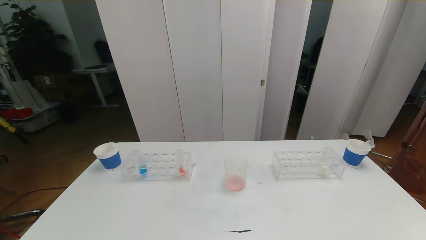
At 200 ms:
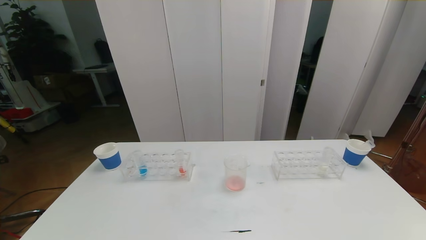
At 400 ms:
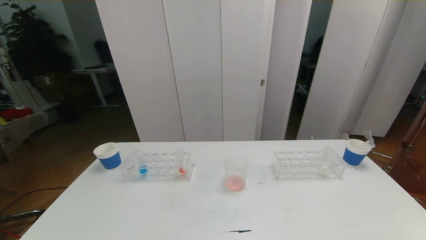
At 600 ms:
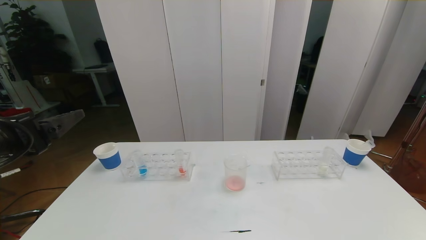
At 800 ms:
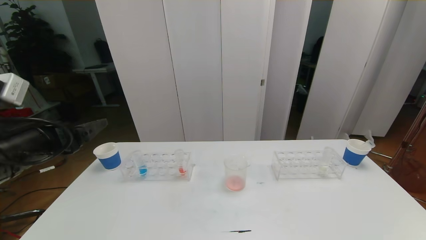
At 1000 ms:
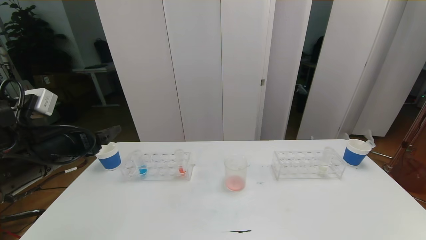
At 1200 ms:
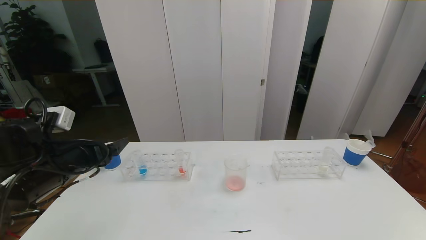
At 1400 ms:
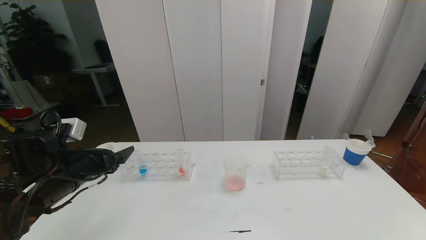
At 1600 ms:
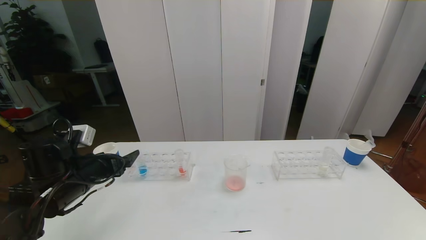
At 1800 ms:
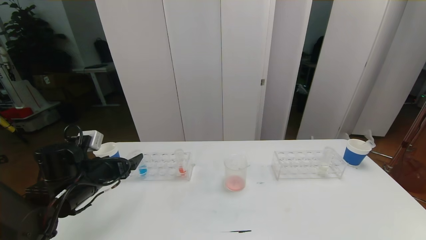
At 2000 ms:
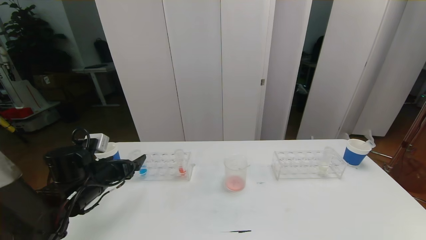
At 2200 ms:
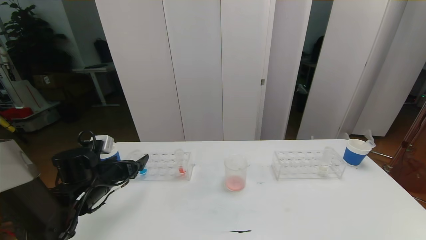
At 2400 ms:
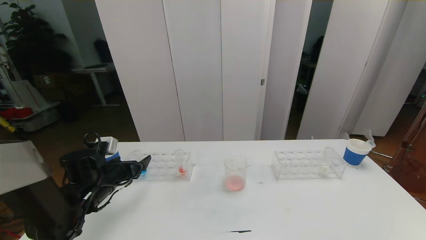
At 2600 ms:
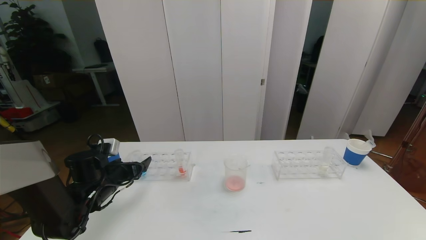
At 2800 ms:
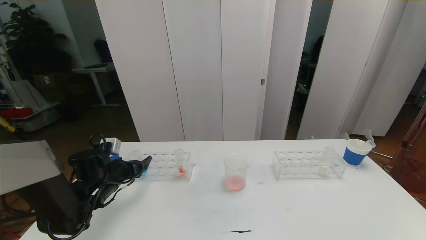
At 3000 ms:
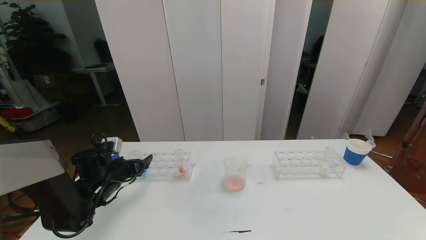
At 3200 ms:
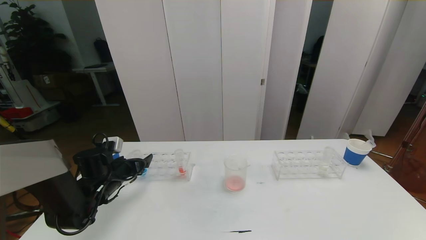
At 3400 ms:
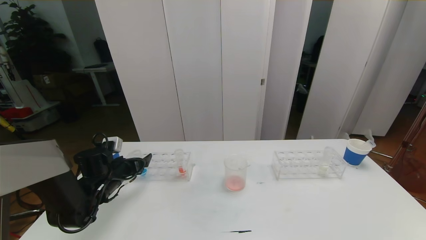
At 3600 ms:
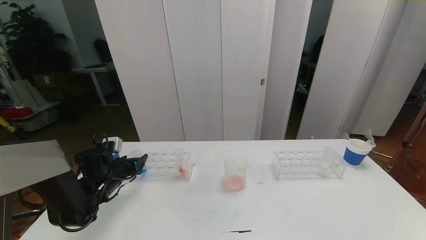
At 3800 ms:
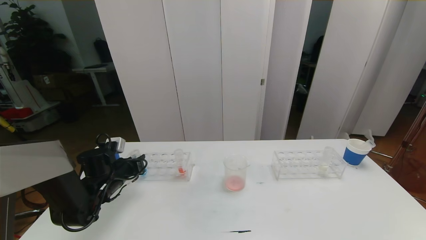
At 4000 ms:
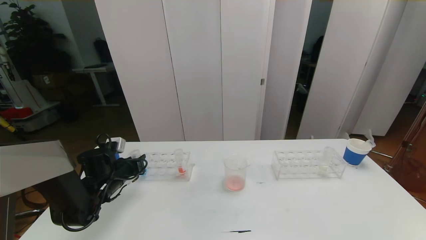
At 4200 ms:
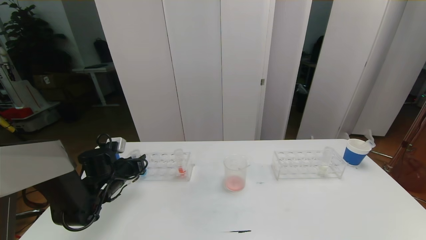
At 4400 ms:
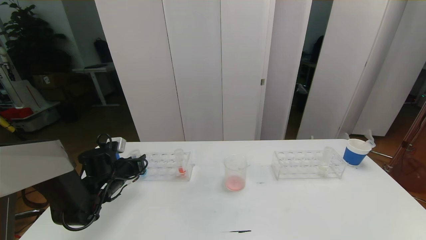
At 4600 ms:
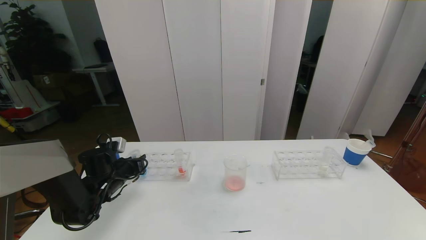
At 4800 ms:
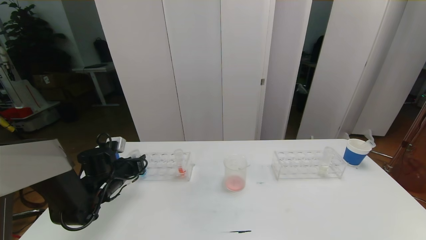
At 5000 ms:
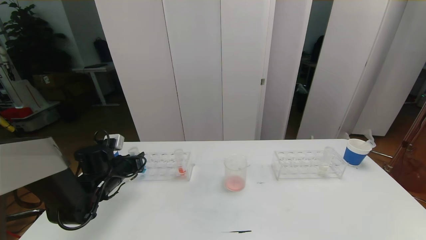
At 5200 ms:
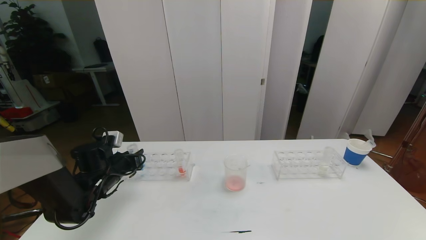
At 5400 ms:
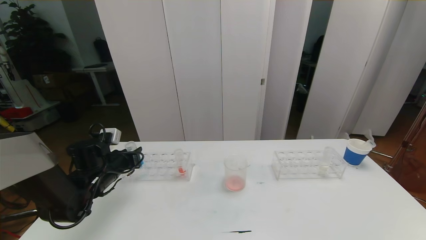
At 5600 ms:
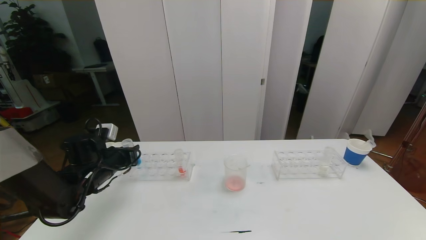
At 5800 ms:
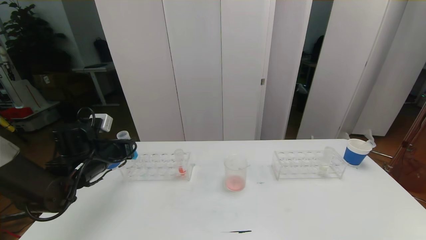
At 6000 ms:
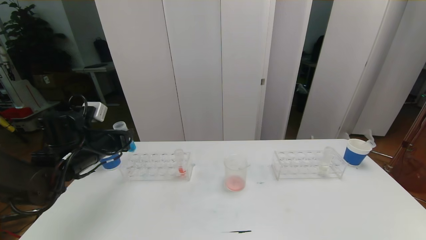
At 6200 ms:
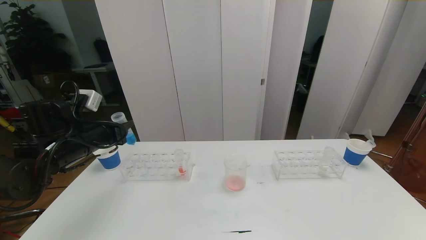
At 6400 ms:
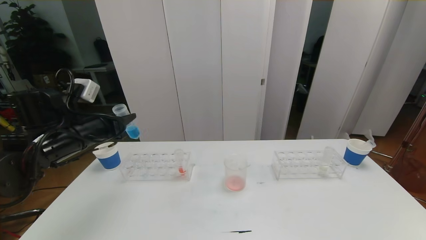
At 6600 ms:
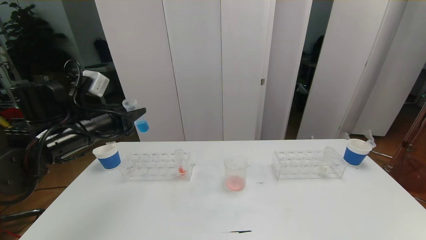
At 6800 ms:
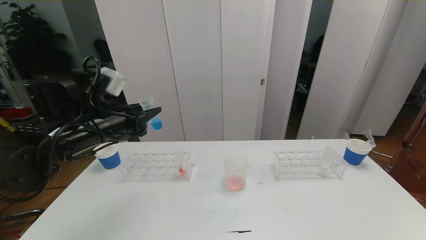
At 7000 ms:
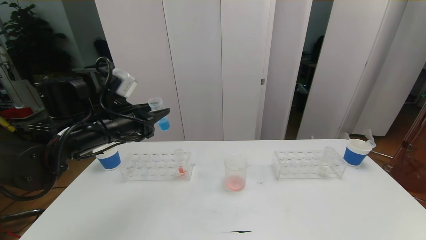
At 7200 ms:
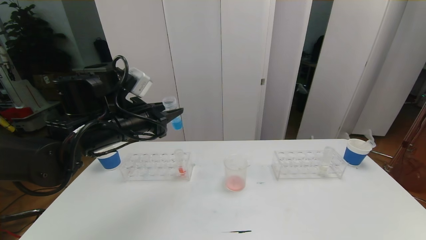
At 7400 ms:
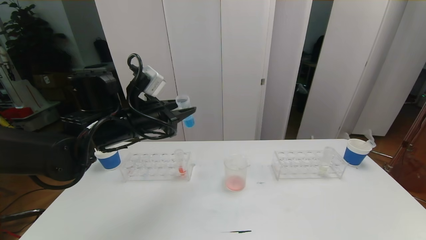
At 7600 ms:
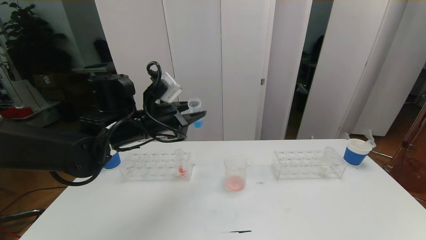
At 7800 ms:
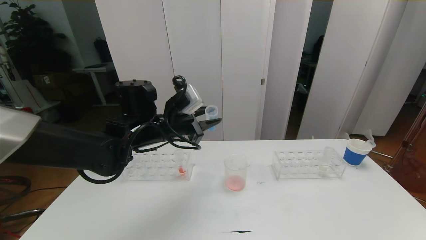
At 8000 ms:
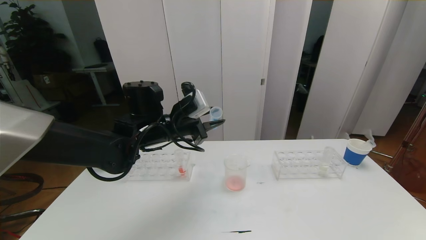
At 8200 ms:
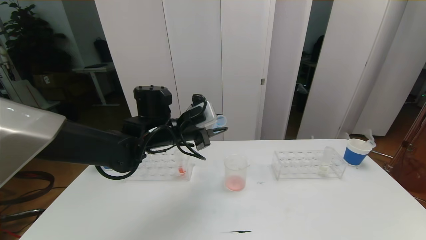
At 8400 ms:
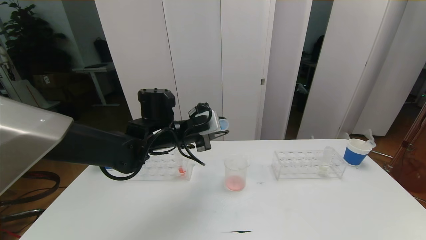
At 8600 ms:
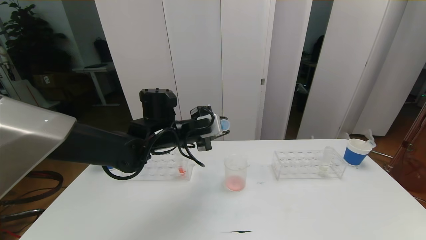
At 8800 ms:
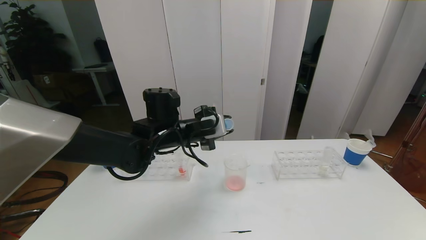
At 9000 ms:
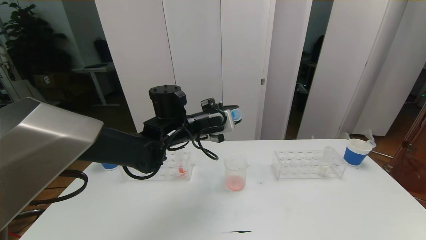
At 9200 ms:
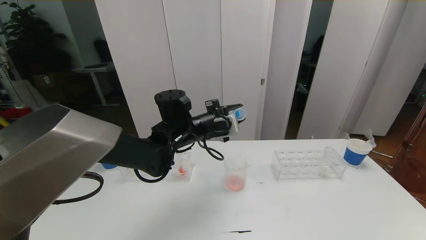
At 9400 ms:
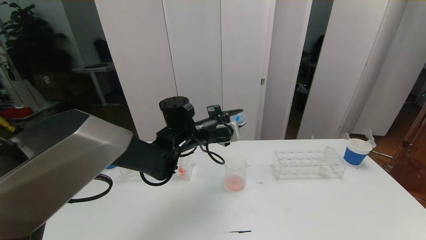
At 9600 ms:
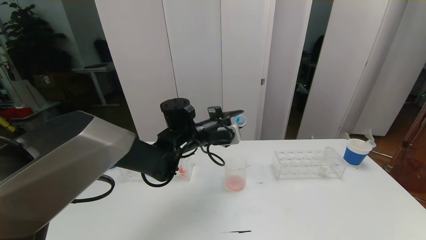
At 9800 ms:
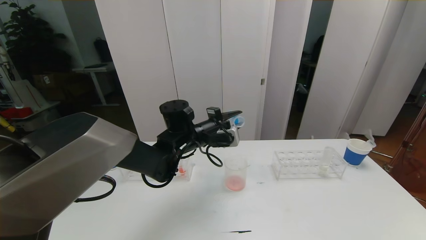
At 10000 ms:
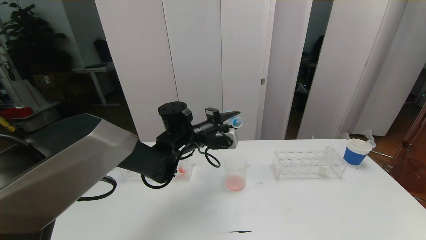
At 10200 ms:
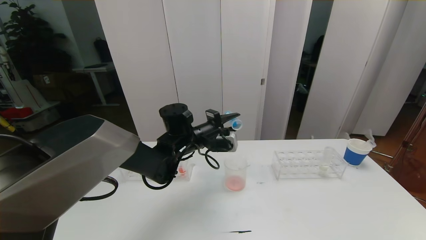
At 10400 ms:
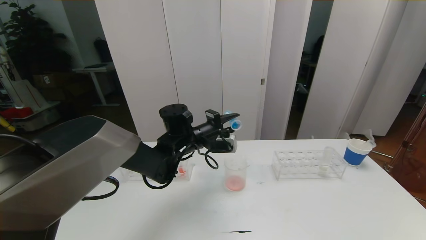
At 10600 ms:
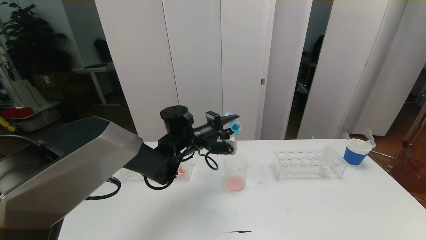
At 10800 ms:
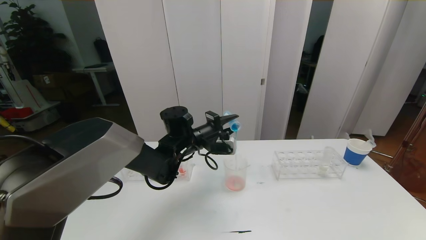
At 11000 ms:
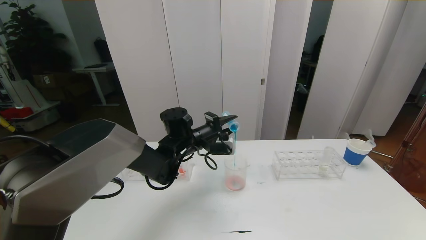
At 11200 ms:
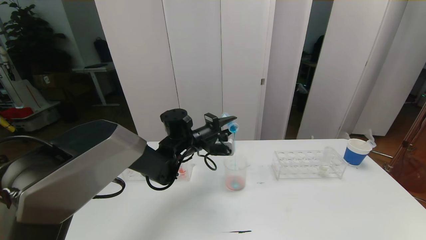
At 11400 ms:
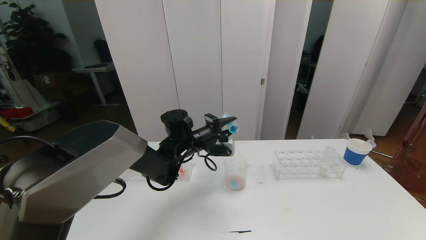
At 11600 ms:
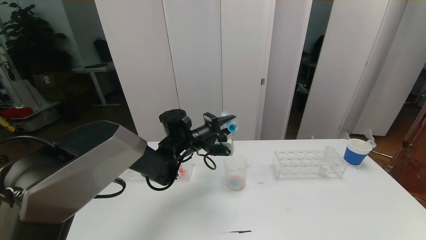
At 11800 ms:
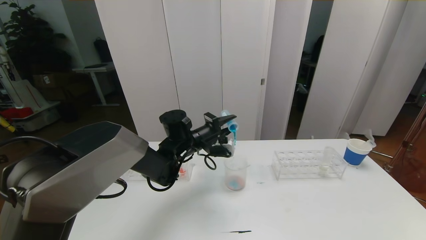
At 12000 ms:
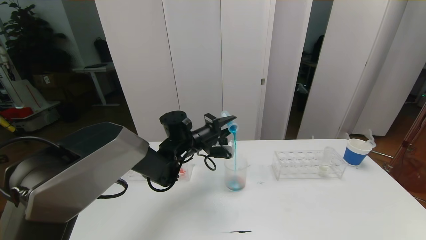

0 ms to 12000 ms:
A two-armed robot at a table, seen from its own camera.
Task of the whole recording: pick up the test tube with red pigment the test tube with blue pigment and the test tube with white pigment by grippers and pour them into the beaker.
0 ms to 1600 ms: The left gripper shifts some 25 cm forward.
1600 ms to 3000 ms: The left gripper goes about 10 cm downward and forward.
3000 ms to 4400 ms: The left gripper closes up.
4400 ms to 6000 ms: The left gripper goes approximately 10 cm upward.
6000 ms to 7600 ms: The left gripper shifts about 15 cm to the right and upward.
7600 ms to 9000 ms: The left gripper travels to the right by about 5 cm.
9000 ms to 10400 ms: The left gripper ends up approximately 5 cm from where it was.
10400 ms to 12000 ms: The grippers move only a little.

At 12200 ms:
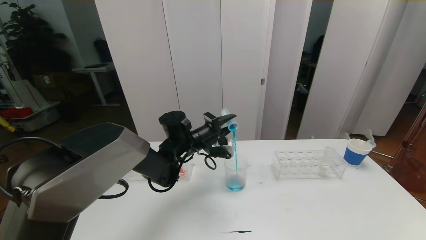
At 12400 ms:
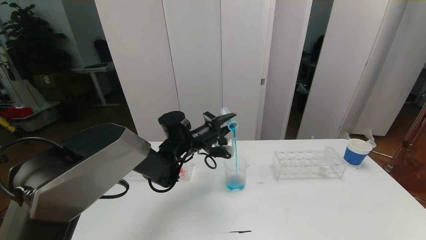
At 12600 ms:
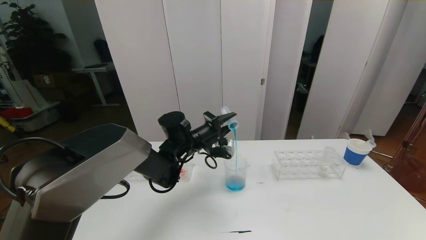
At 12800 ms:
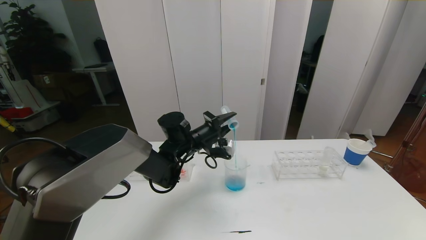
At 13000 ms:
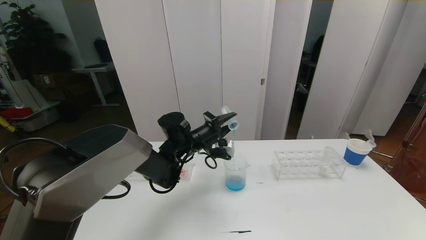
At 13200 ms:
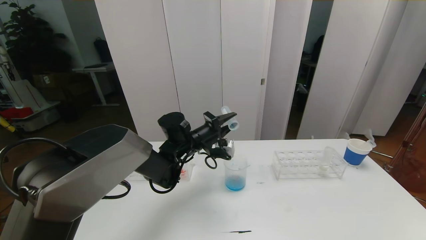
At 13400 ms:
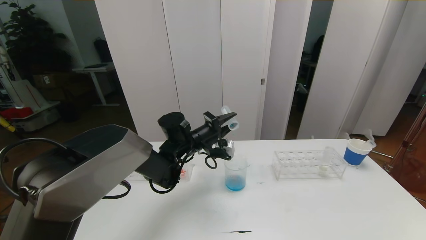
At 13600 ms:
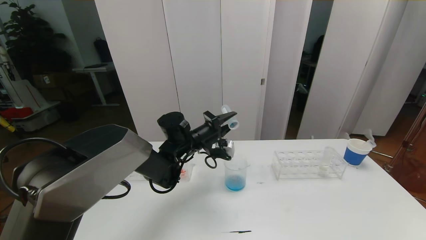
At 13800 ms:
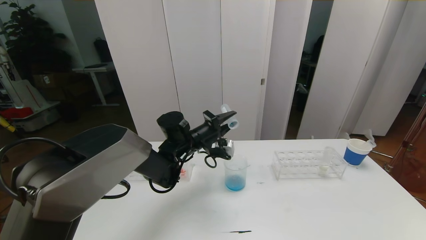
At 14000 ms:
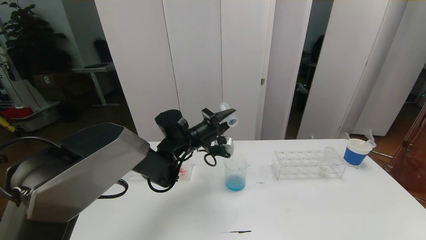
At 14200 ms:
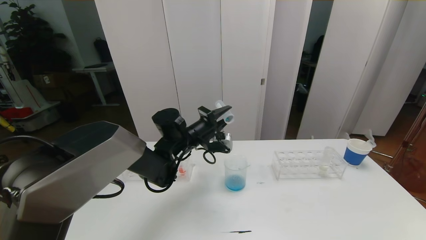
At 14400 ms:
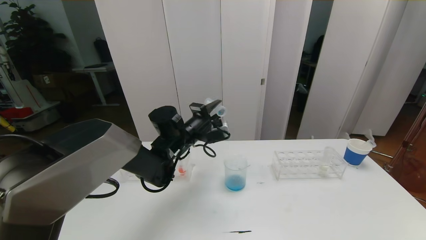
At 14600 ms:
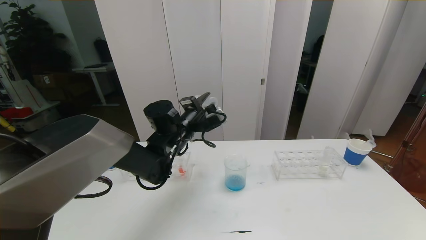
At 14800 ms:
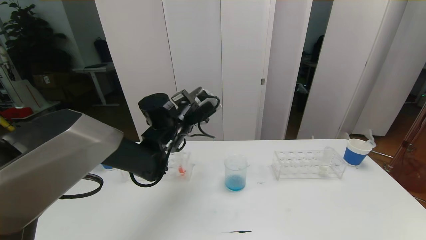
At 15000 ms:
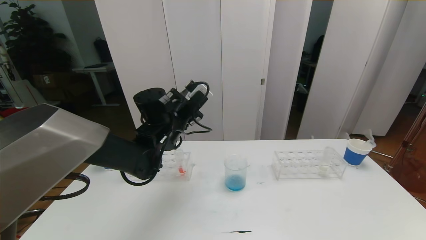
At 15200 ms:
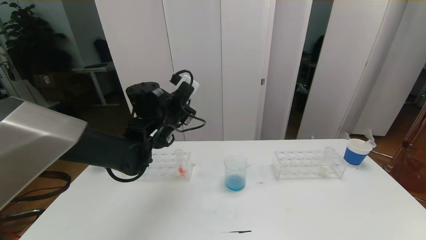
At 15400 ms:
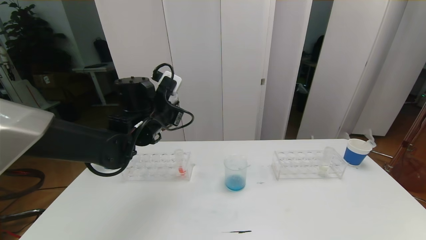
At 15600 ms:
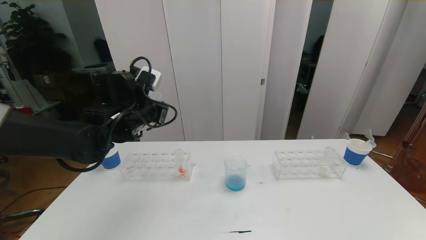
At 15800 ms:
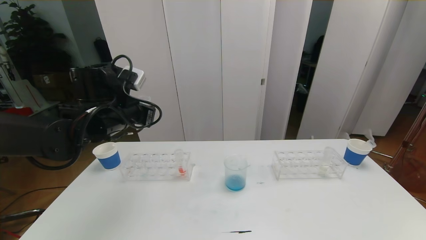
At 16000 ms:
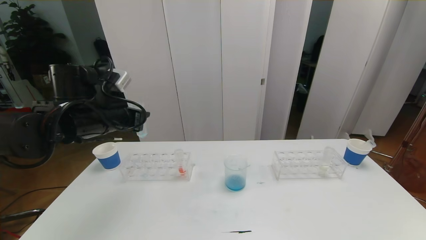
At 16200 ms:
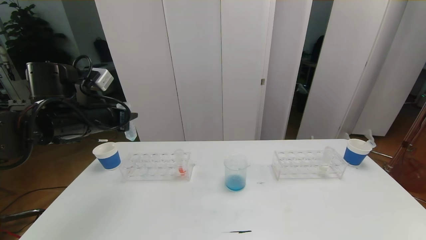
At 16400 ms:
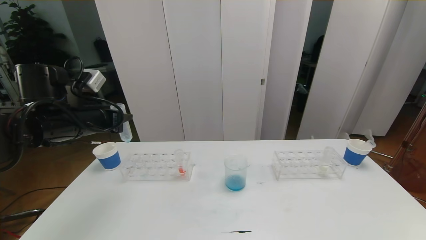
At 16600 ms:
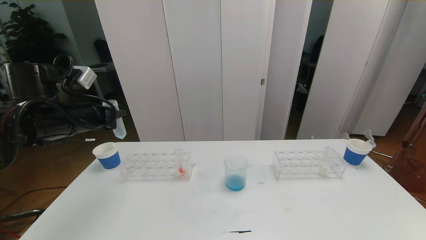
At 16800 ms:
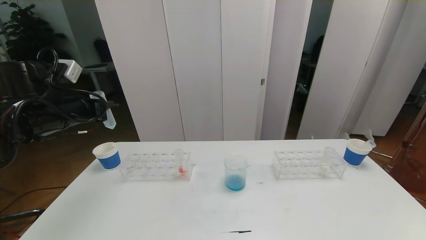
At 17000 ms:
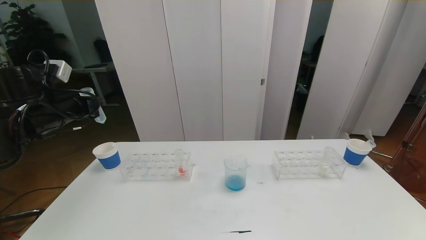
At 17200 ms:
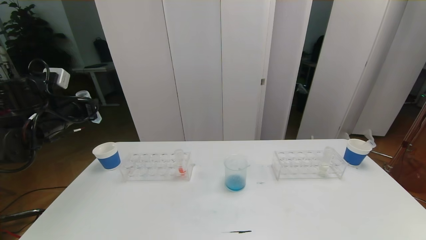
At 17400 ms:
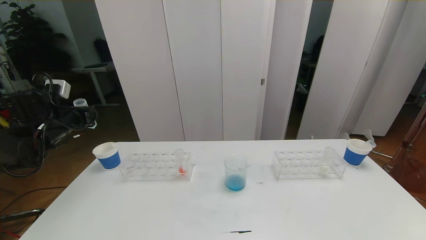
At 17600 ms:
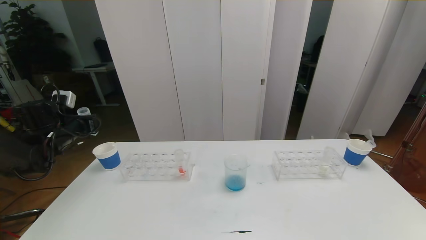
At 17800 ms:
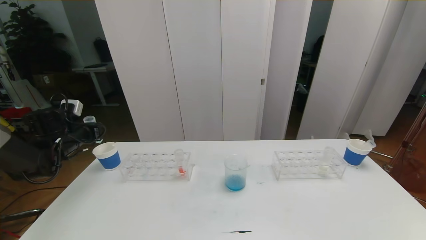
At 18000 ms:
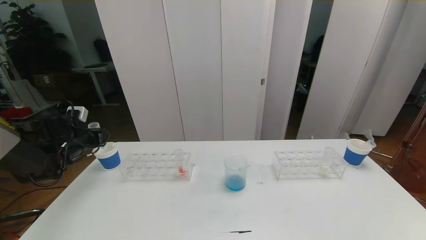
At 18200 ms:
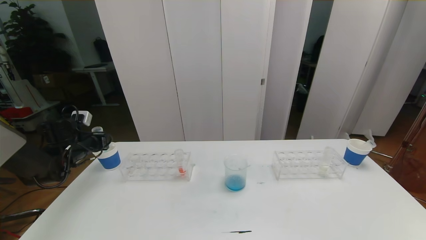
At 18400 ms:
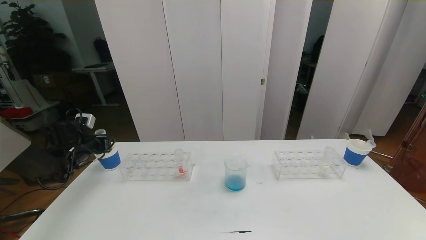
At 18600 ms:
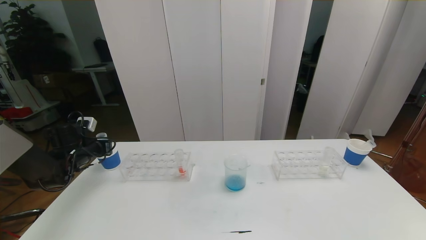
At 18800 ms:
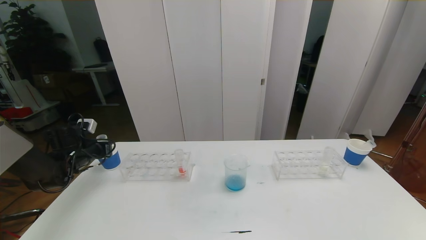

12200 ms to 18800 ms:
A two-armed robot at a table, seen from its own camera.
Task of the whole recording: pick up the test tube with red pigment the test tube with blue pigment and the test tube with white pigment by grippers and pour them into the beaker.
12200 ms to 13800 ms: There are only small adjustments of the grippers.
13800 ms to 15400 ms: The left gripper shifts some 10 cm upward and to the left.
15400 ms to 17200 ms: The left gripper is displaced to the left by some 20 cm.
17200 ms to 18800 ms: The left gripper heads downward, covering about 15 cm.